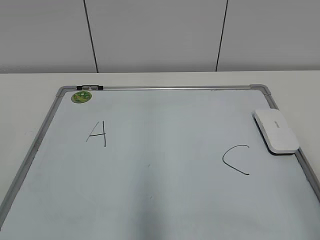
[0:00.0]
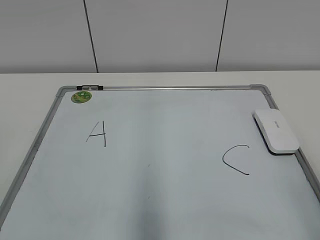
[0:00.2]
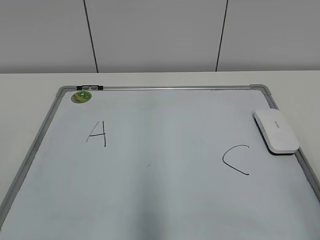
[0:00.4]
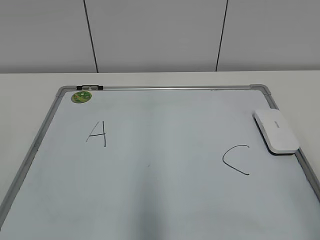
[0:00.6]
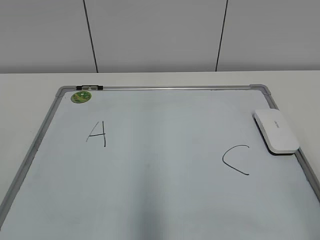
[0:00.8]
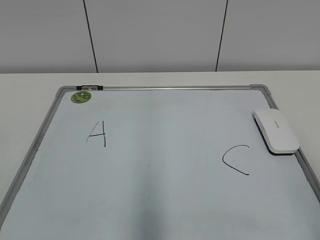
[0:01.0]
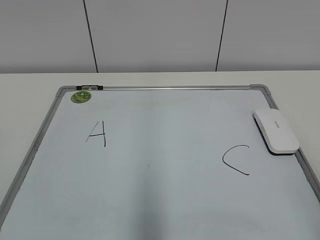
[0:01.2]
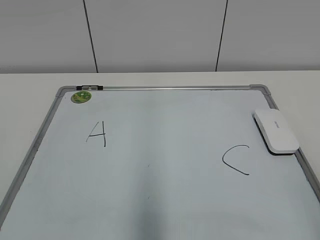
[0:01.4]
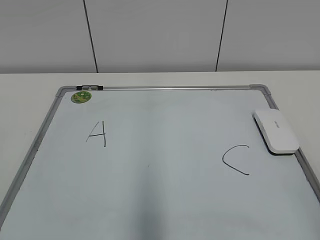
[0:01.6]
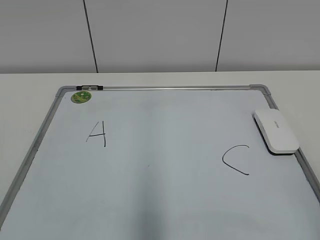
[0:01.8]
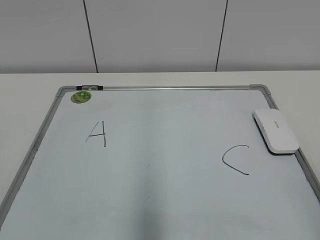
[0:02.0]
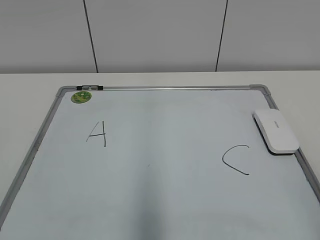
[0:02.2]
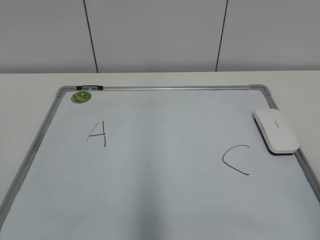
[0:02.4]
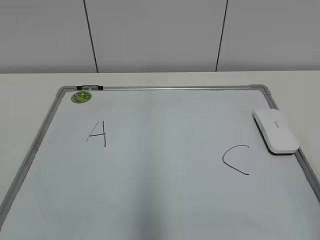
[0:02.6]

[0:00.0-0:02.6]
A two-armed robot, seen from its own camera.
Task of the whole recording: pick up the eraser on the blackboard and erase the letter "B".
0:01.2 to 0:02.6: Both grippers stay put.
